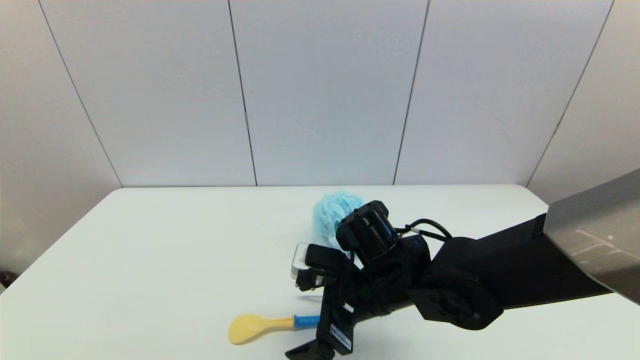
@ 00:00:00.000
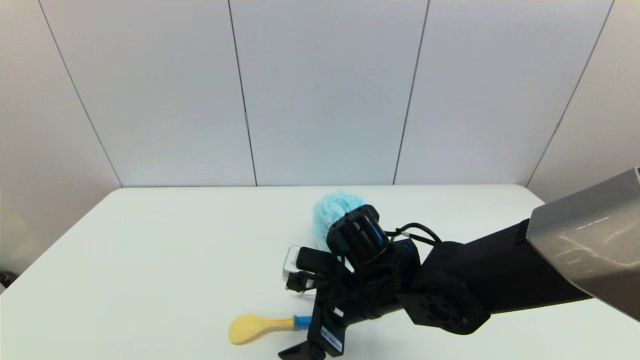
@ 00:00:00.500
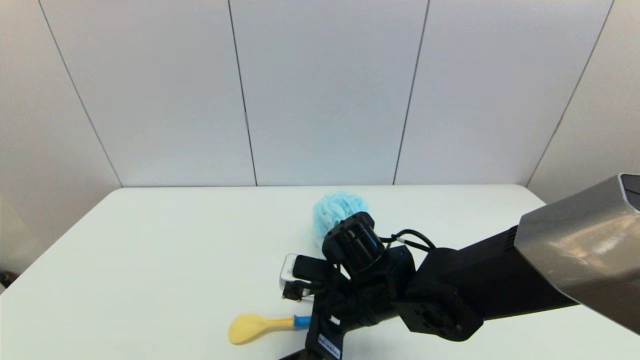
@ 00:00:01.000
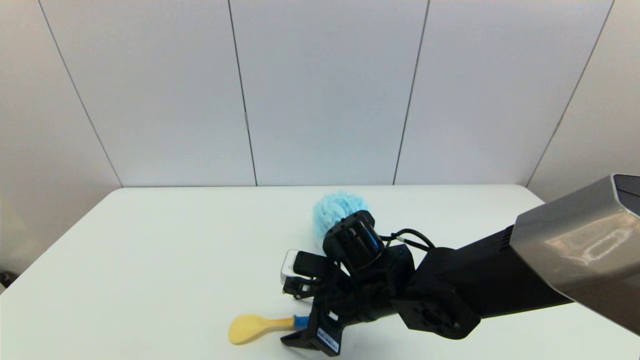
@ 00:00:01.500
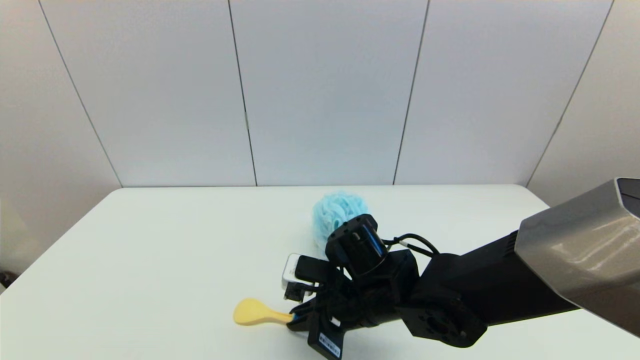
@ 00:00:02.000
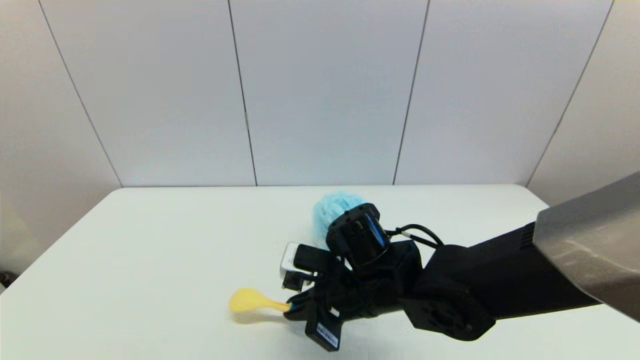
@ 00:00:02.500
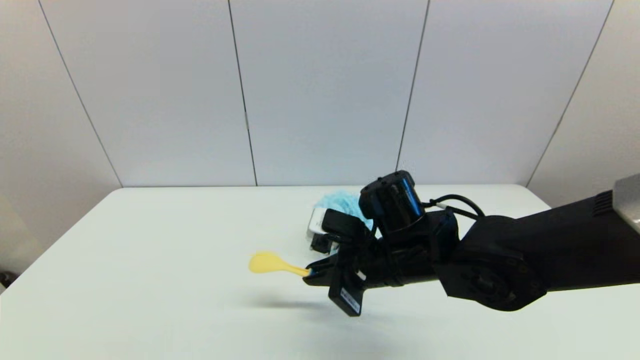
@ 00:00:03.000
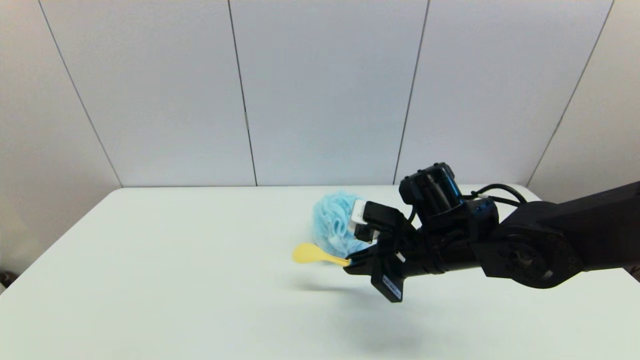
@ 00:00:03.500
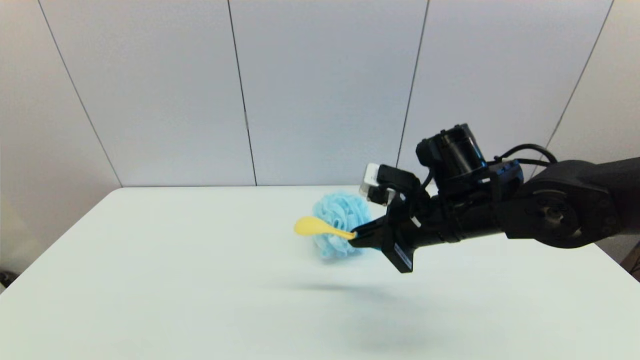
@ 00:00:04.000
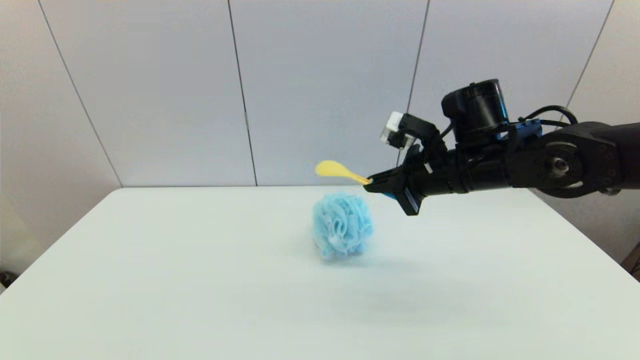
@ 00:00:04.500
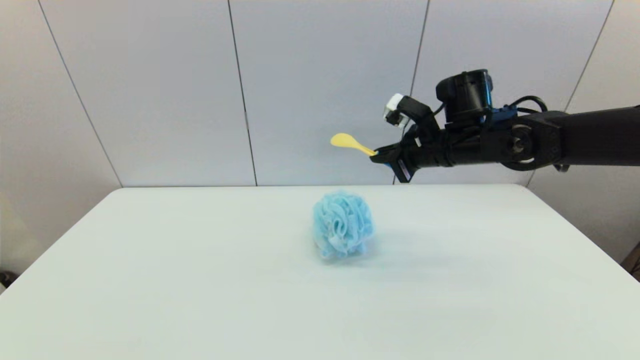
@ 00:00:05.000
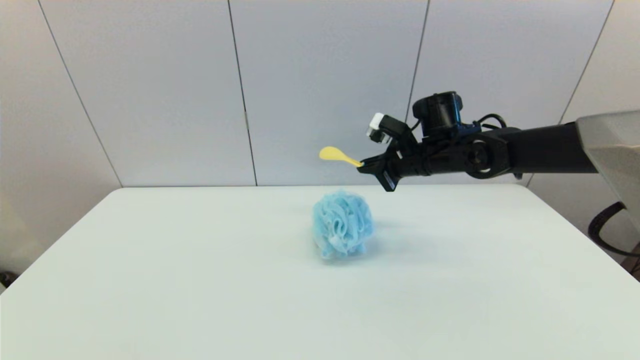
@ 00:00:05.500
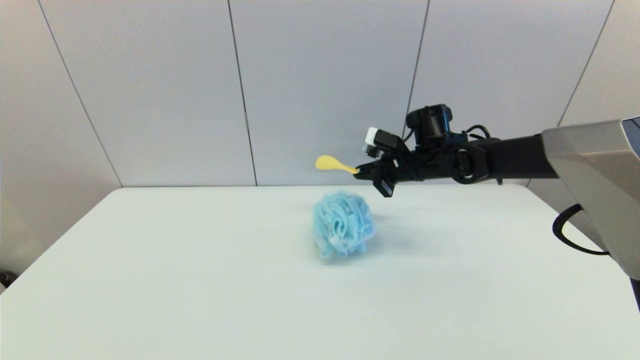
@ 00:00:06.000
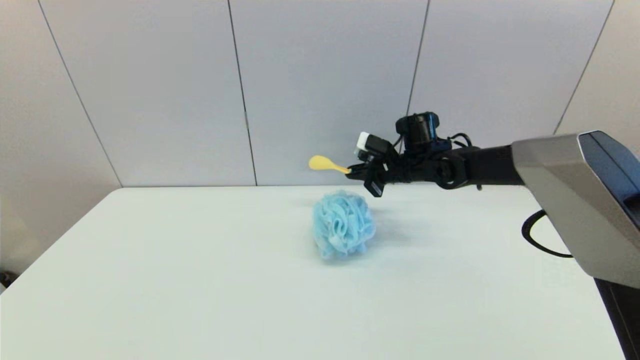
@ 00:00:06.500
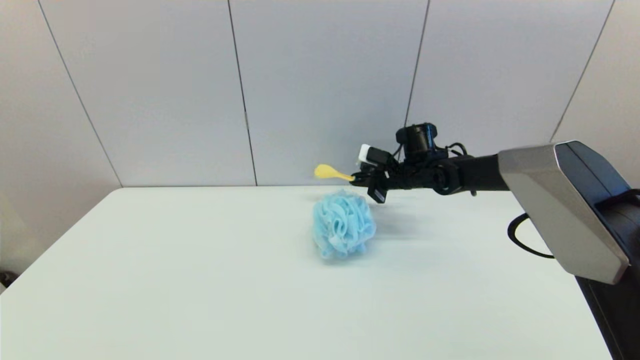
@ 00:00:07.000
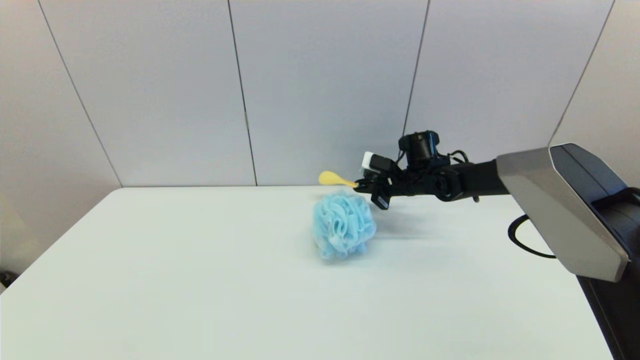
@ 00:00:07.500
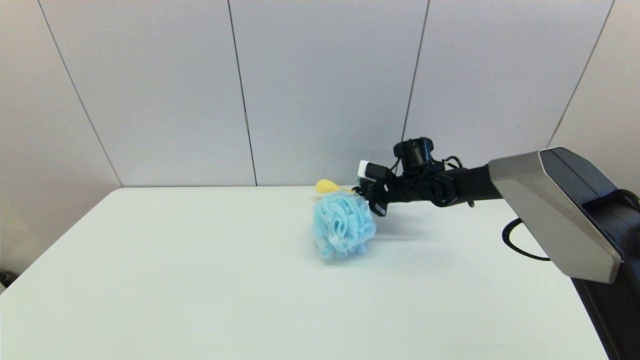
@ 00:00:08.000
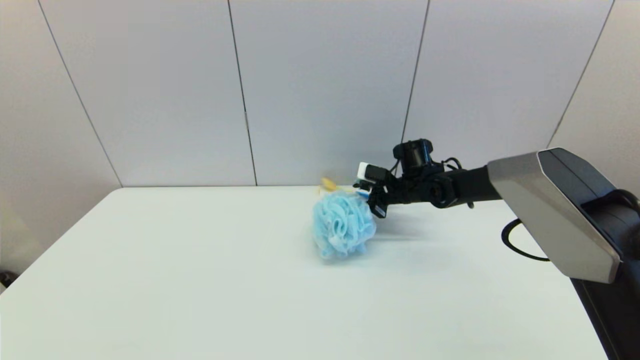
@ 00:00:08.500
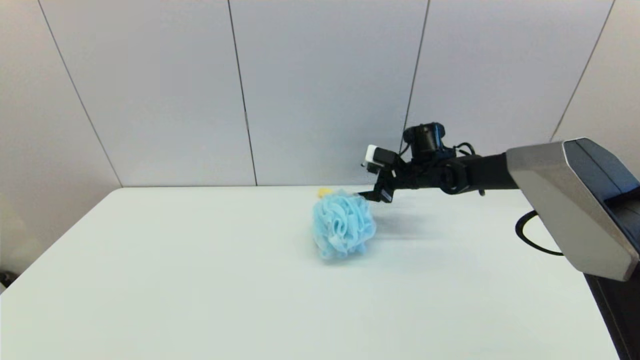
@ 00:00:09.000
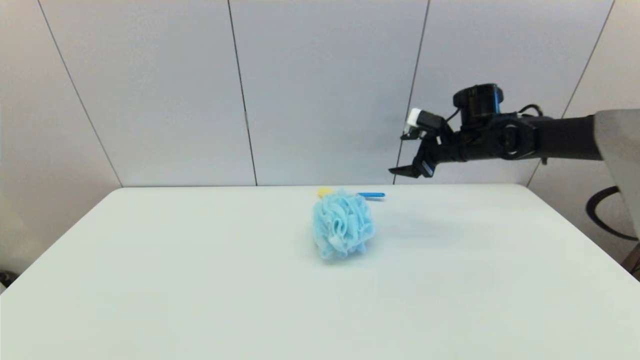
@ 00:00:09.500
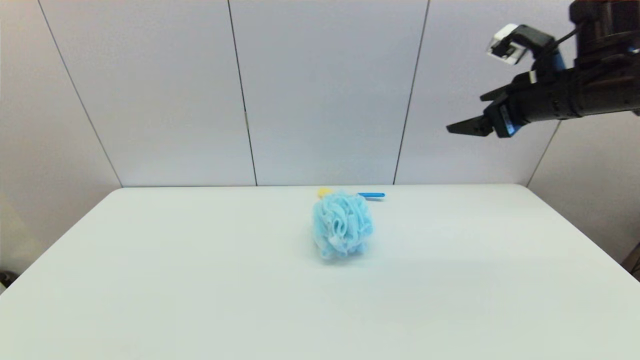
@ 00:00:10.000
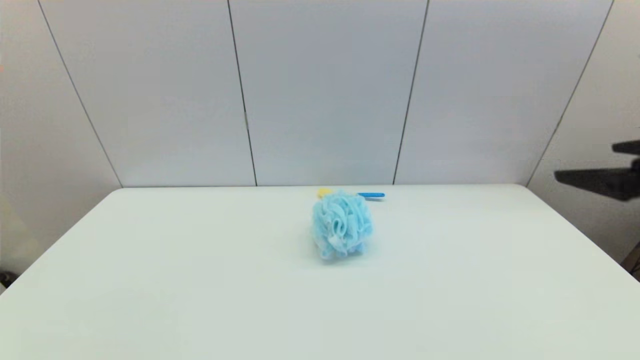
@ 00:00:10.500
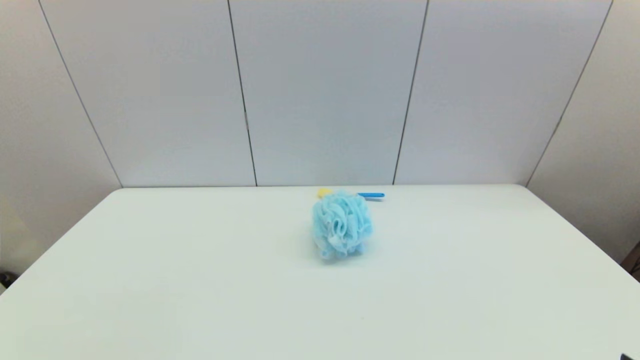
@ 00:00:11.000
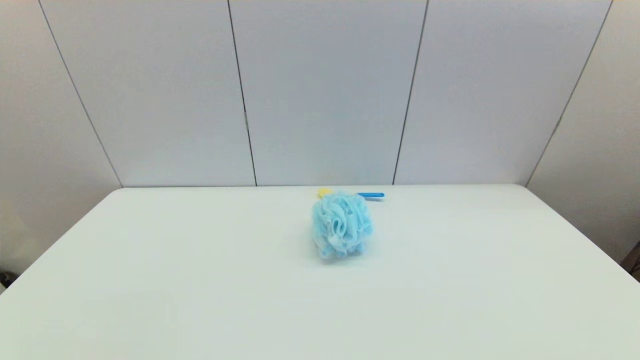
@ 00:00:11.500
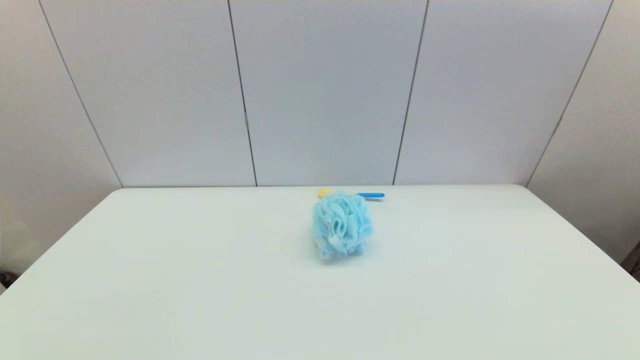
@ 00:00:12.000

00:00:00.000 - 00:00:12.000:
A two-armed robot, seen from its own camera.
Step, 00:00:00.000 - 00:00:02.000: Grasp the spoon with right gripper.
Step, 00:00:02.500 - 00:00:08.000: Place the spoon on the table with right gripper.
00:00:00.000 - 00:00:02.000: The right gripper closes.
00:00:02.000 - 00:00:04.000: The right gripper travels upward and to the right by approximately 15 cm.
00:00:04.000 - 00:00:06.000: The right gripper goes some 15 cm forward.
00:00:06.000 - 00:00:08.000: The right gripper travels downward by approximately 5 cm.
00:00:08.000 - 00:00:10.000: The right gripper goes some 30 cm upward, backward and to the right, and opens up.
00:00:10.000 - 00:00:12.000: The right gripper travels backward and downward by approximately 40 cm.

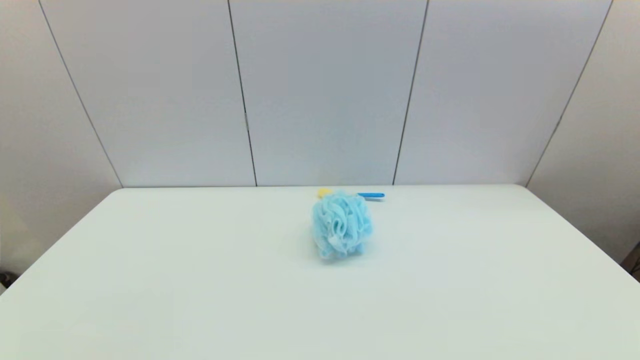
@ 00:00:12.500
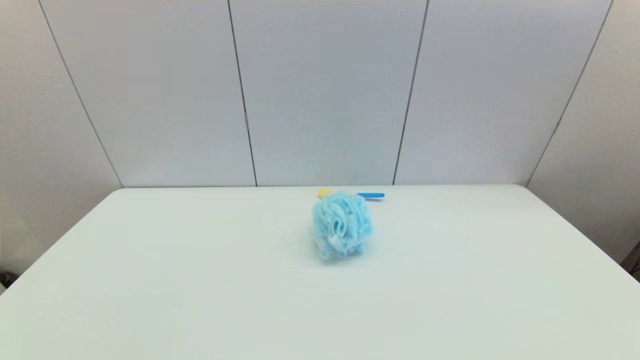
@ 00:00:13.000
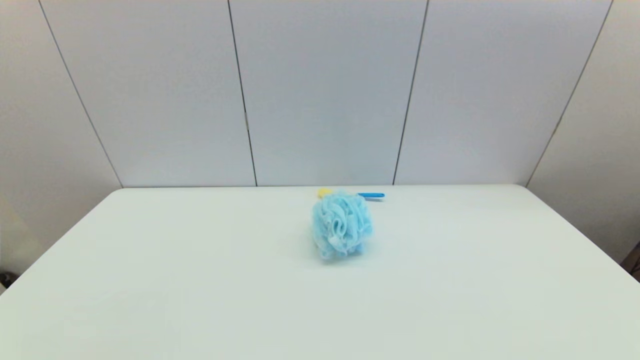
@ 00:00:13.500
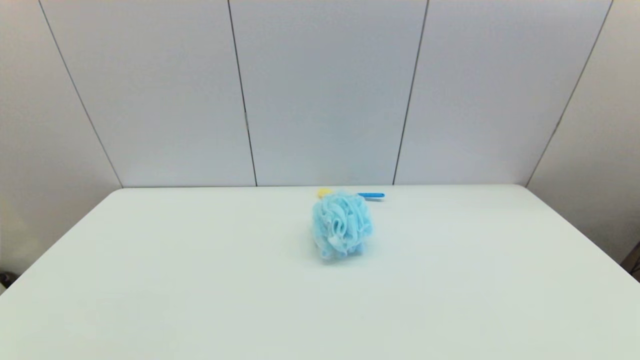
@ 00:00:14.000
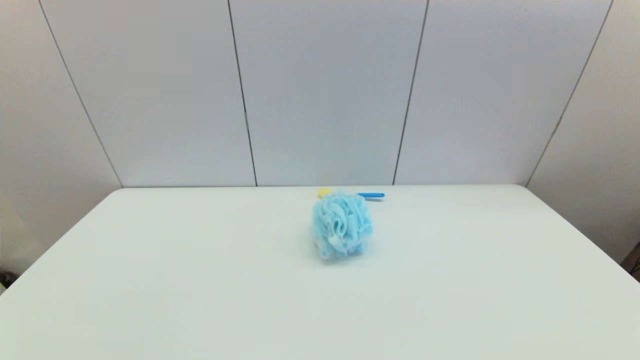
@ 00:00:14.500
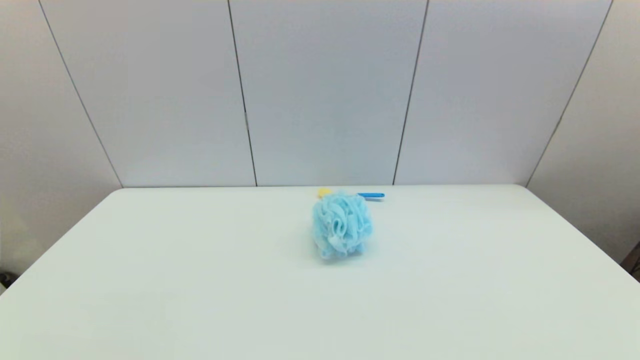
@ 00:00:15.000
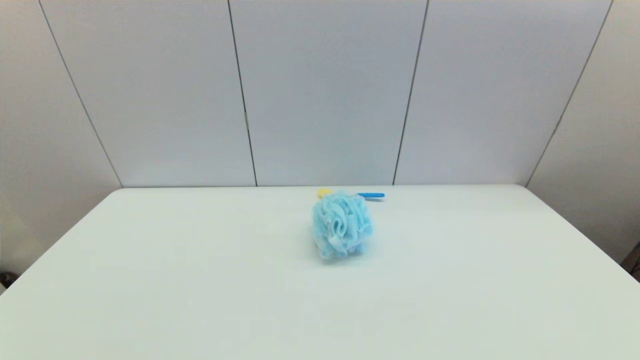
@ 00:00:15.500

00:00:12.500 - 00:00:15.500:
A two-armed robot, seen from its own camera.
00:00:12.500 - 00:00:15.500: The two grippers keep their place.
